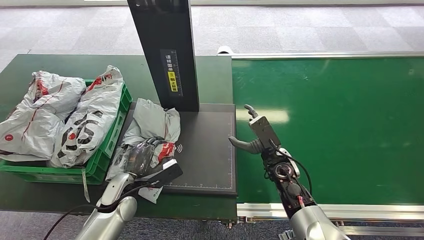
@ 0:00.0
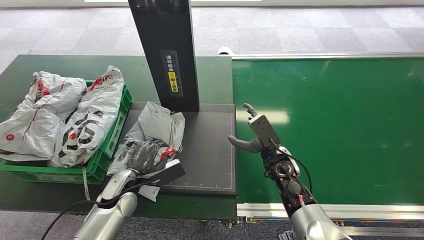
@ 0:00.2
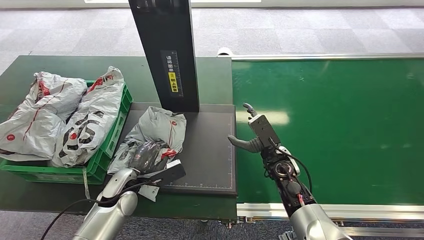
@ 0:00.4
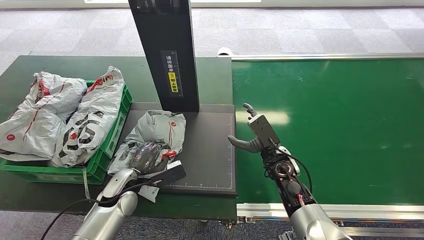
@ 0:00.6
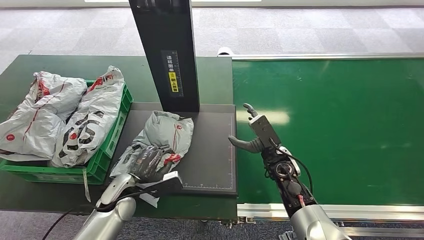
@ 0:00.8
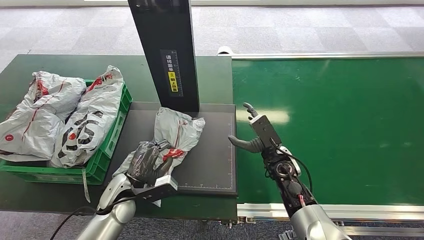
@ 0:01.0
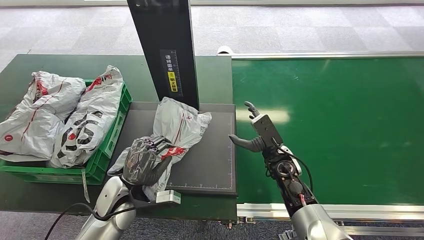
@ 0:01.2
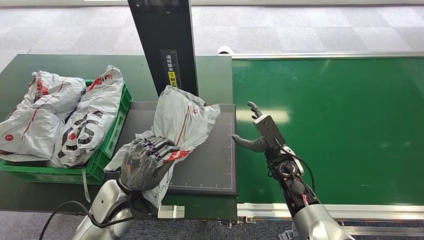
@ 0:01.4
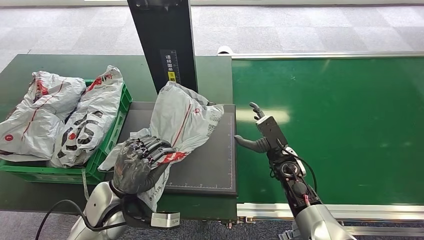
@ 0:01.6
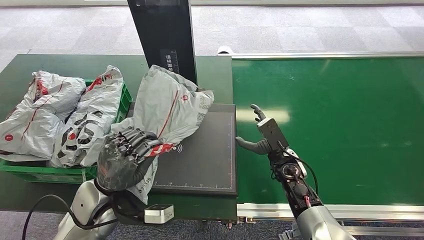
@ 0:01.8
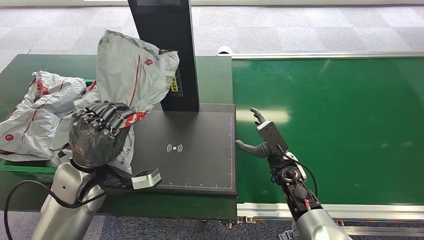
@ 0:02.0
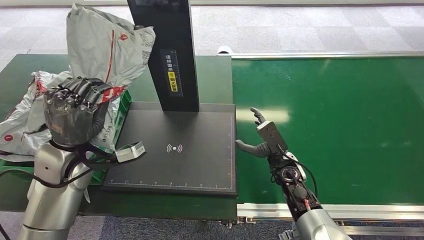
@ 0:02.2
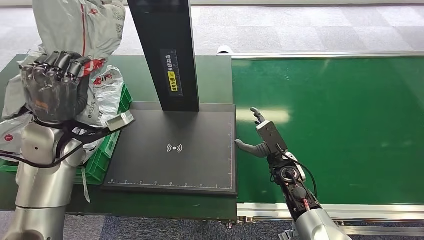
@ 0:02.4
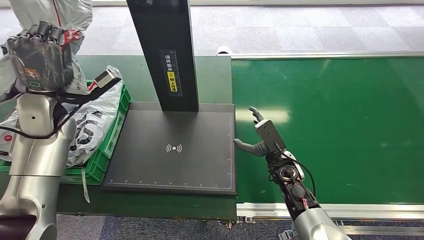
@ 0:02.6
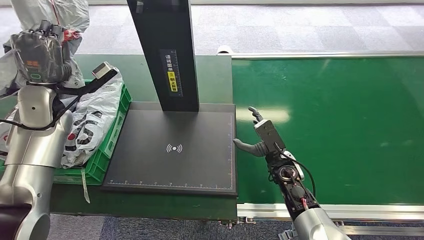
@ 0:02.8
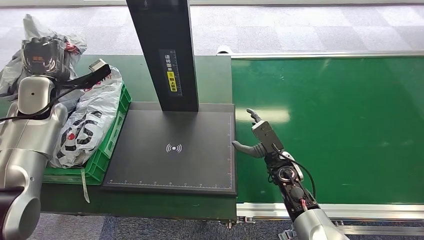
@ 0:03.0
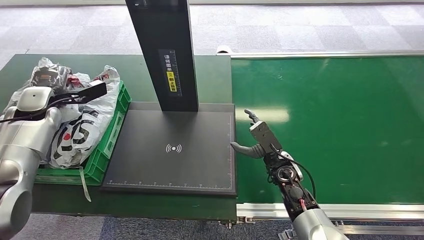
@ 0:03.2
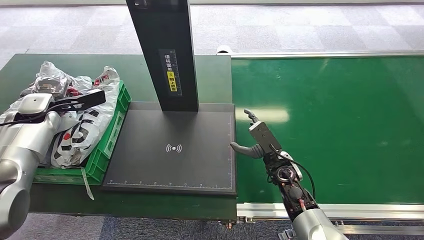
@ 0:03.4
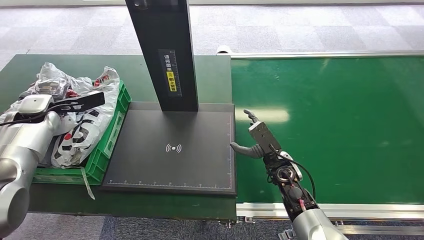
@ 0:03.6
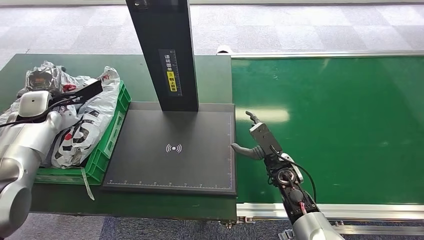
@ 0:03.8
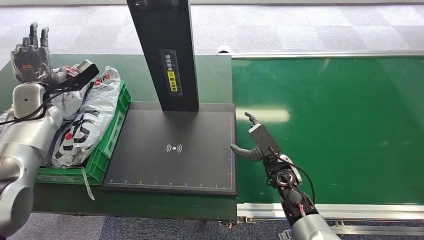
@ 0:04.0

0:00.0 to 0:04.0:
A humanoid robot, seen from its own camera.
Step, 0:02.0 to 0:04.0: Place the package into the parcel locker.
0:00.0 to 0:01.4: The left hand shifts approximately 5 cm upward.
